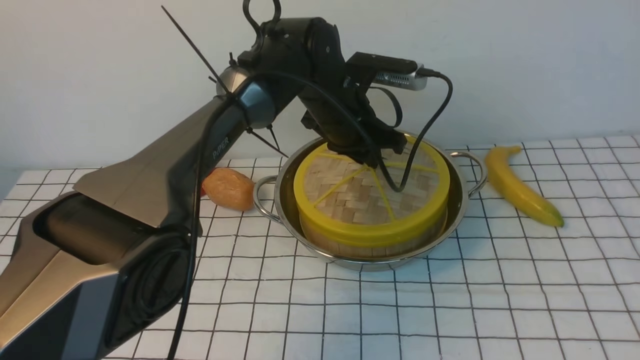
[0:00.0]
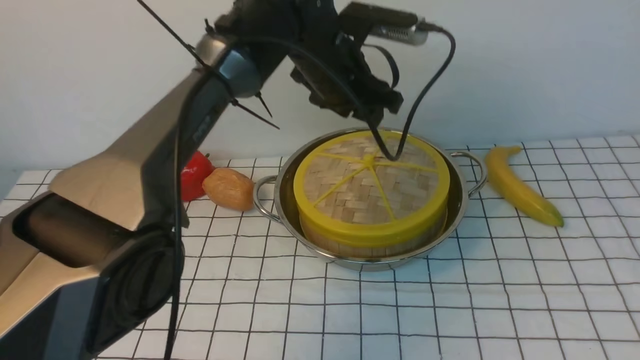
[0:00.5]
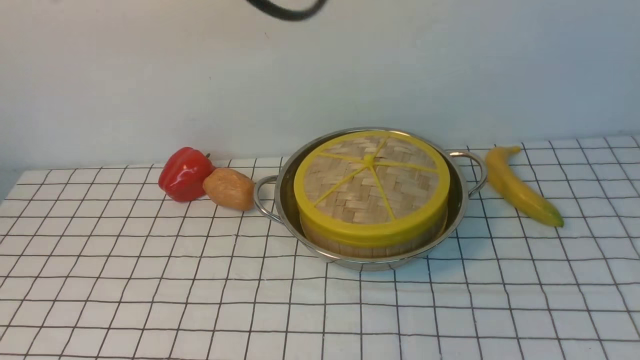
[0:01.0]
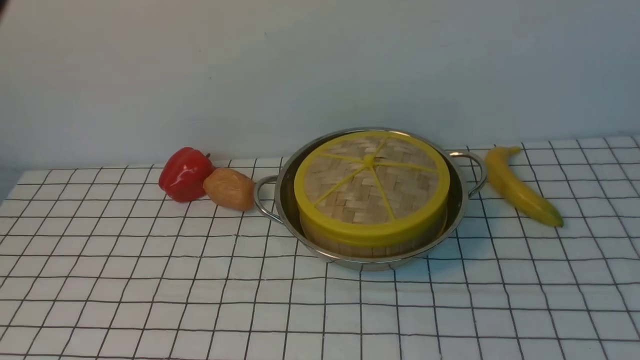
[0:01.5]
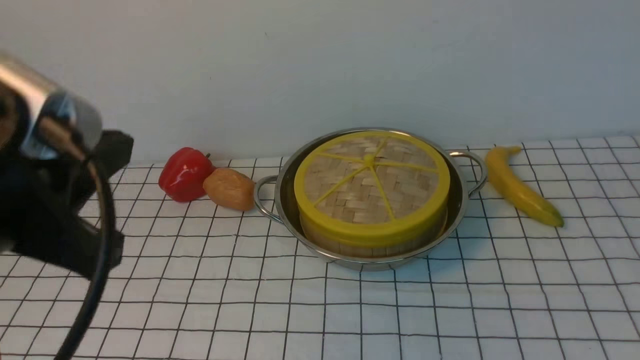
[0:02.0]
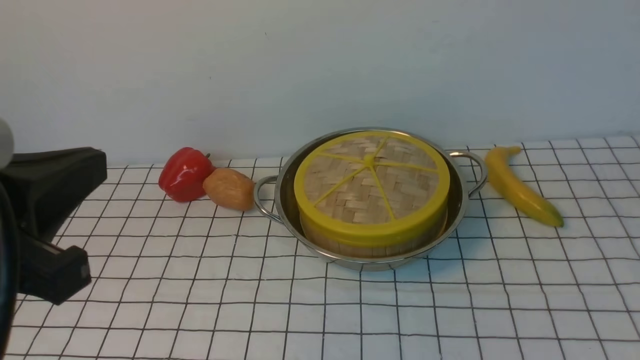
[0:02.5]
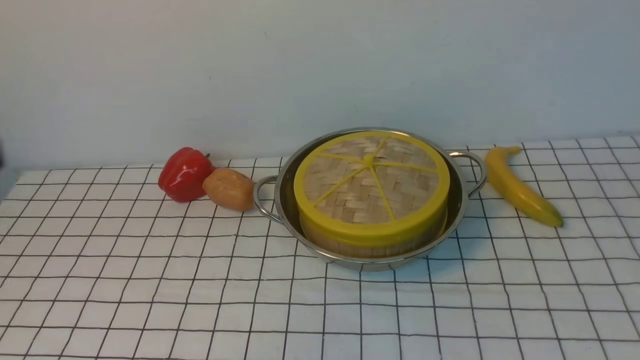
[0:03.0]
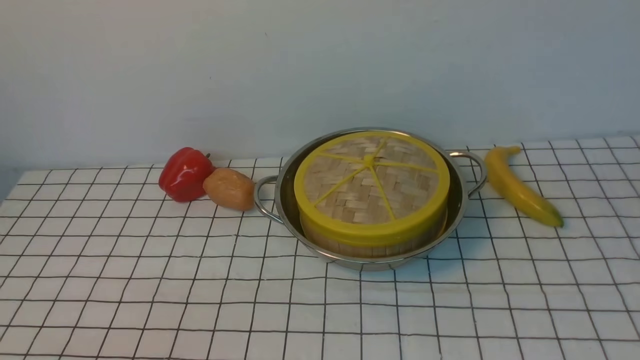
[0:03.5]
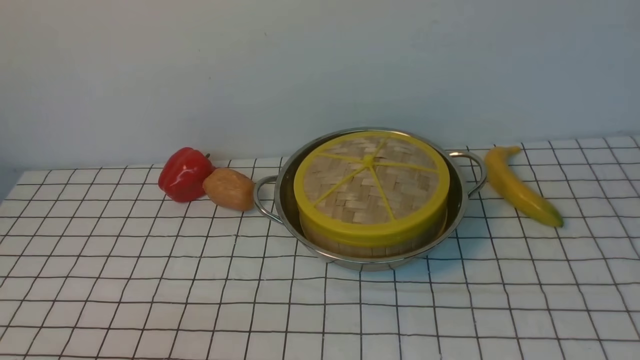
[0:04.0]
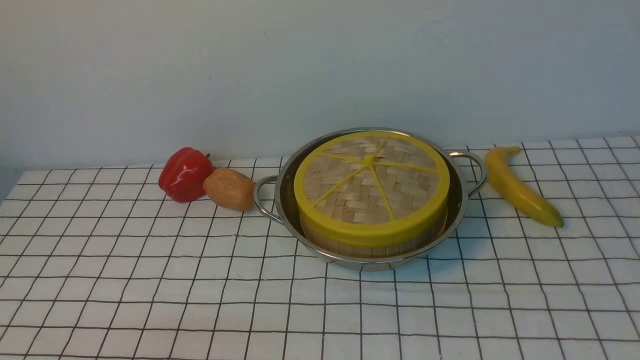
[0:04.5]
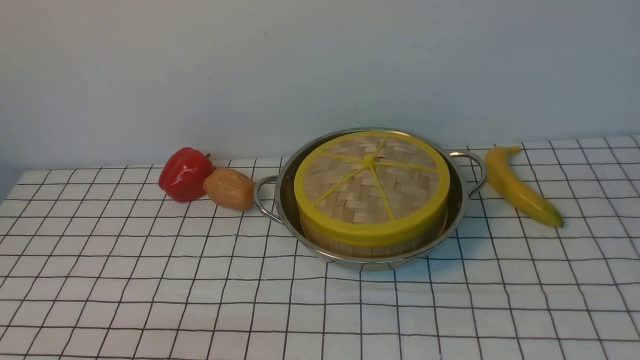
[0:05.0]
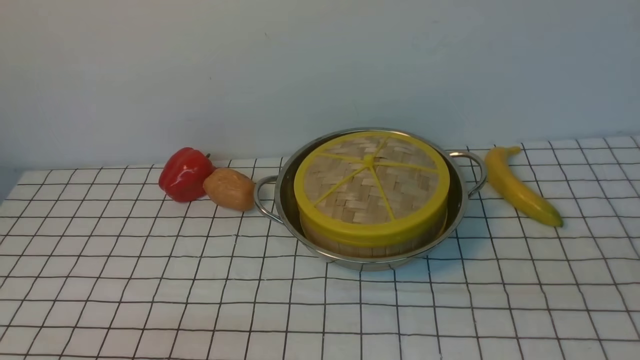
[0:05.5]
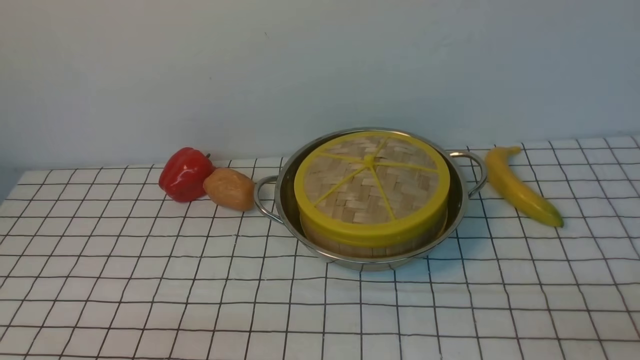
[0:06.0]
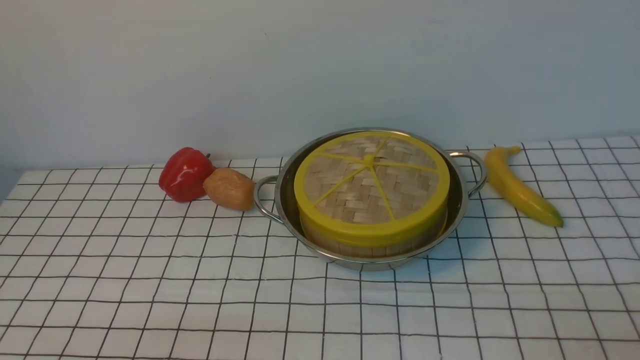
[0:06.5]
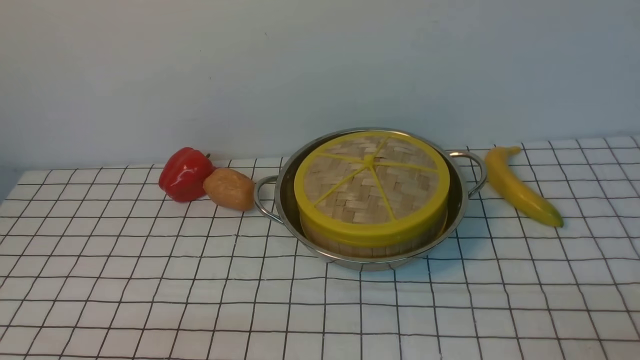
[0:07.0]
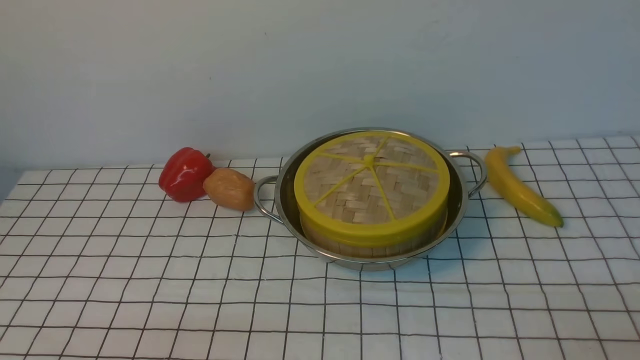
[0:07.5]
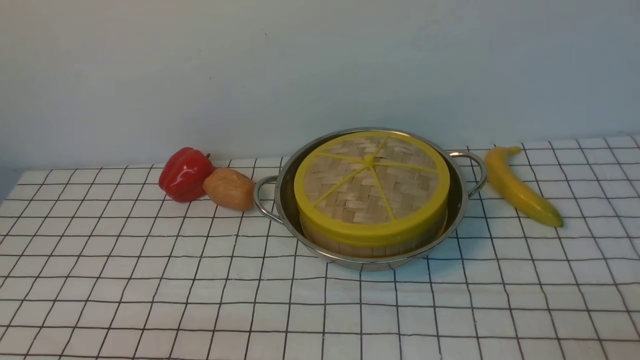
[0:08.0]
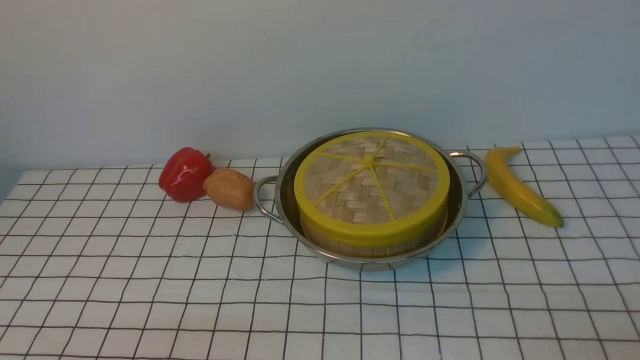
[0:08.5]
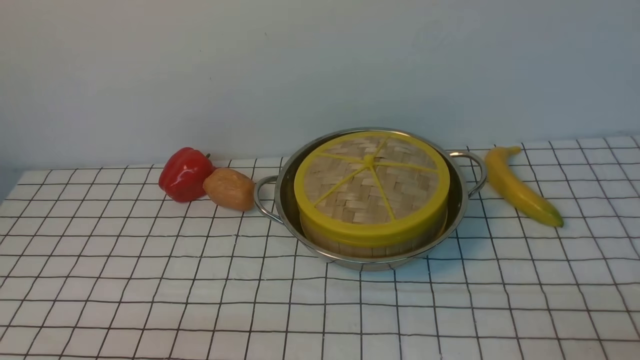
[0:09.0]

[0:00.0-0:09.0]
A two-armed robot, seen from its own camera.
Task of the whole recording: place the steamer in the pot on the white tablecloth, and put the lid on the steamer.
0:00.0 to 0:02.0: The left gripper shifts some 40 cm backward, to the left and upward, and closes up. The right gripper moves downward, approximately 10 cm, and closes up.
0:02.0 to 0:04.5: The left gripper is displaced downward by some 20 cm, and opens up.
0:07.0 to 0:09.0: Both grippers stay put.

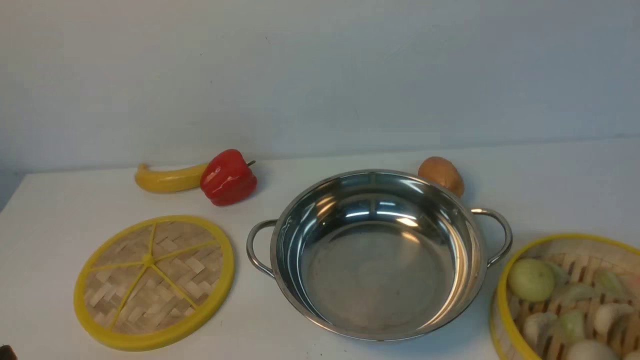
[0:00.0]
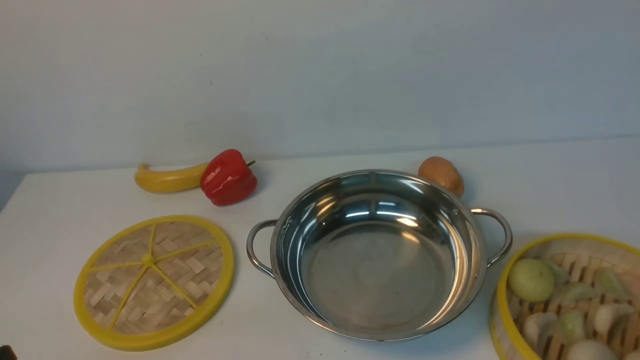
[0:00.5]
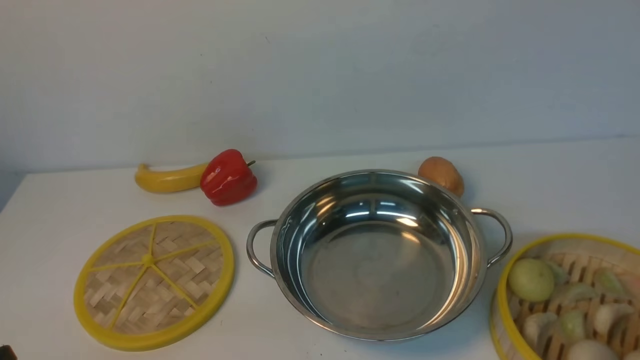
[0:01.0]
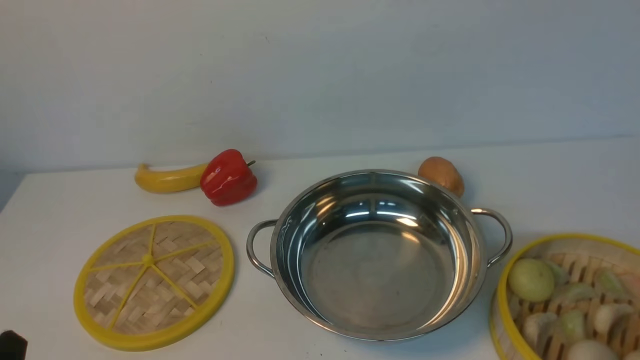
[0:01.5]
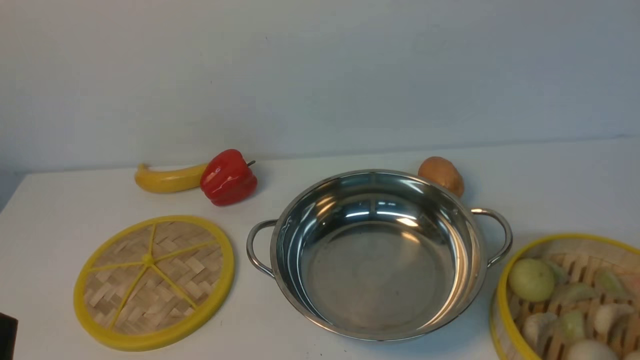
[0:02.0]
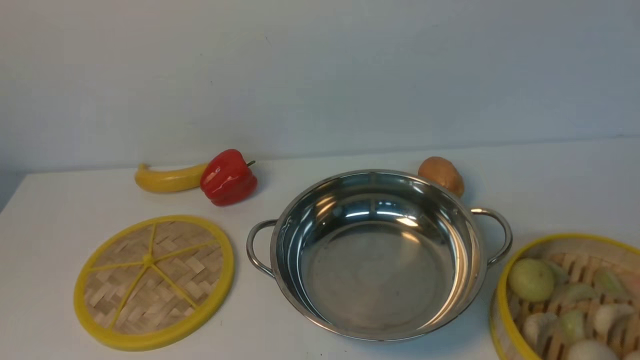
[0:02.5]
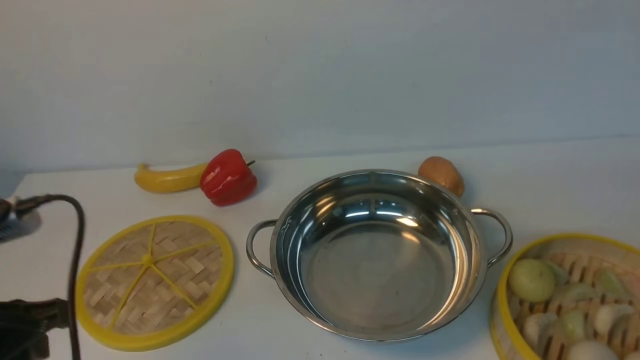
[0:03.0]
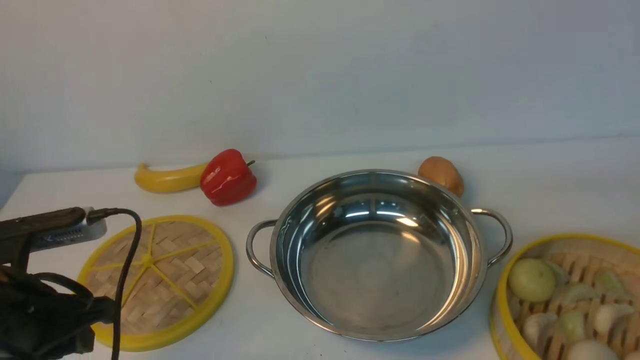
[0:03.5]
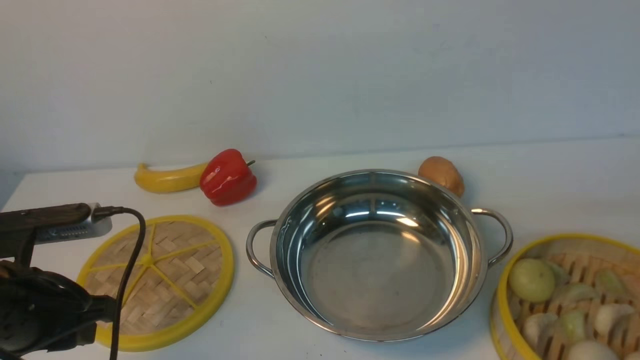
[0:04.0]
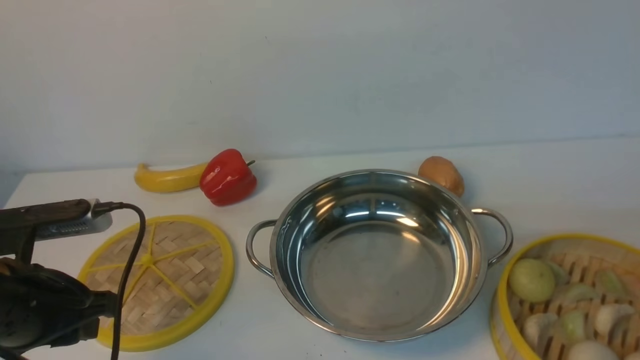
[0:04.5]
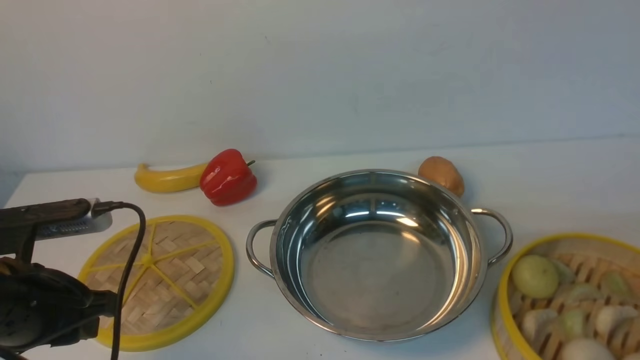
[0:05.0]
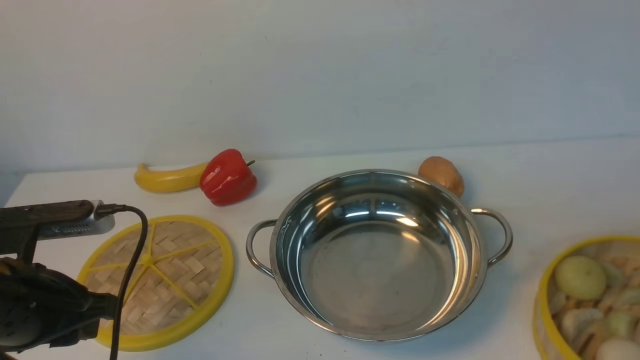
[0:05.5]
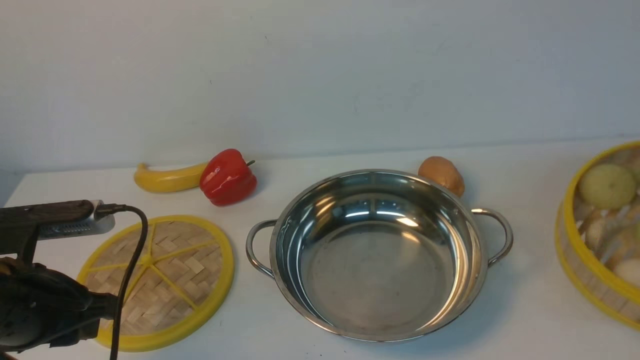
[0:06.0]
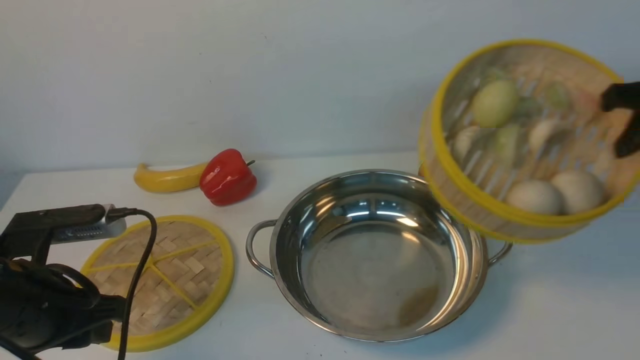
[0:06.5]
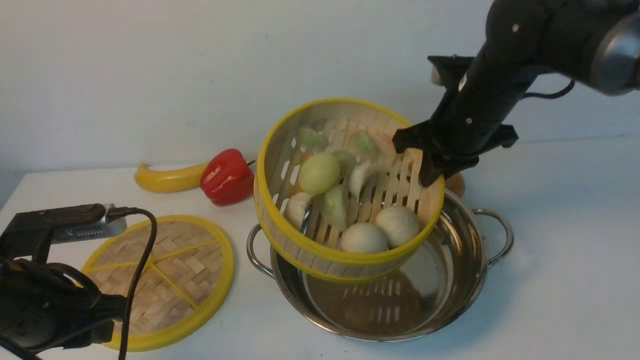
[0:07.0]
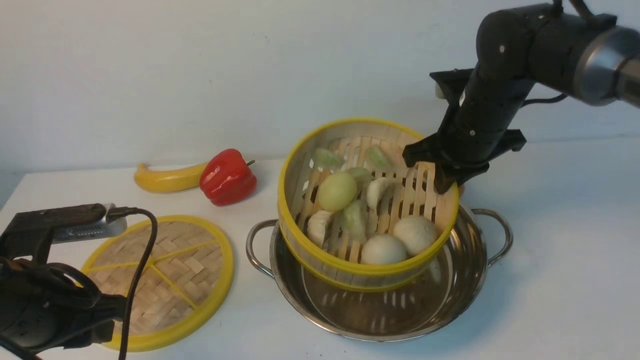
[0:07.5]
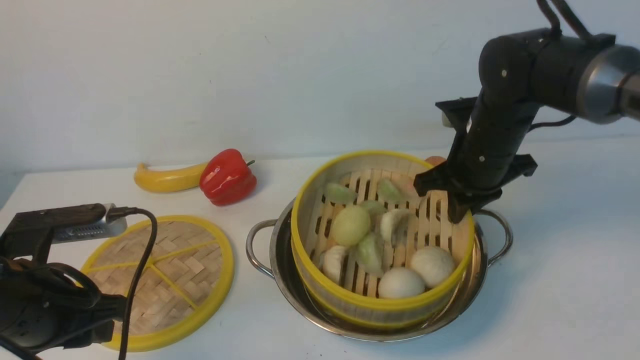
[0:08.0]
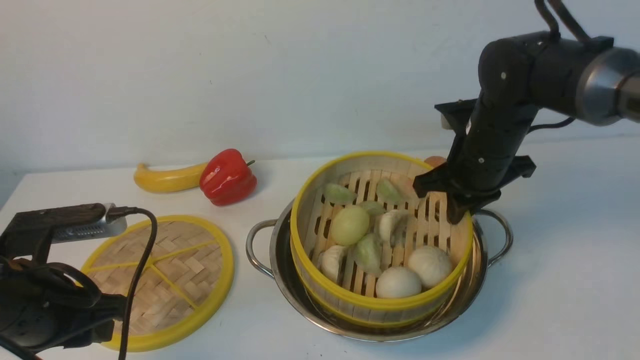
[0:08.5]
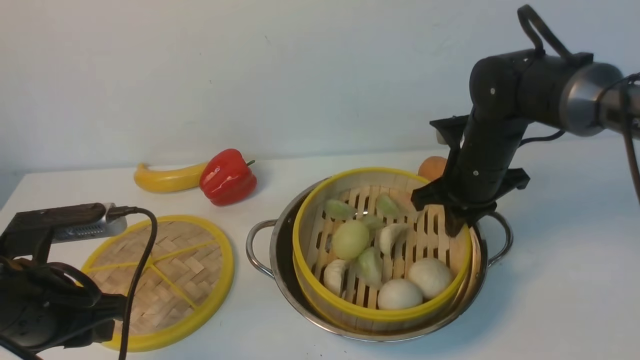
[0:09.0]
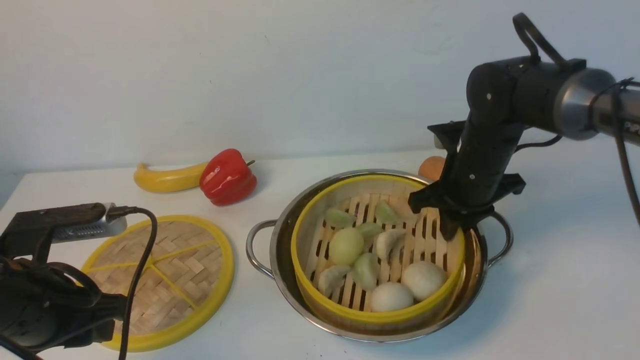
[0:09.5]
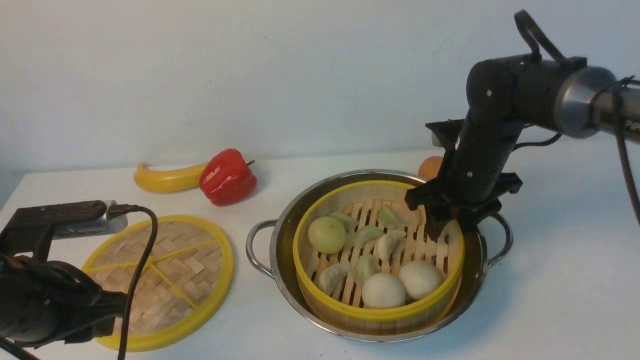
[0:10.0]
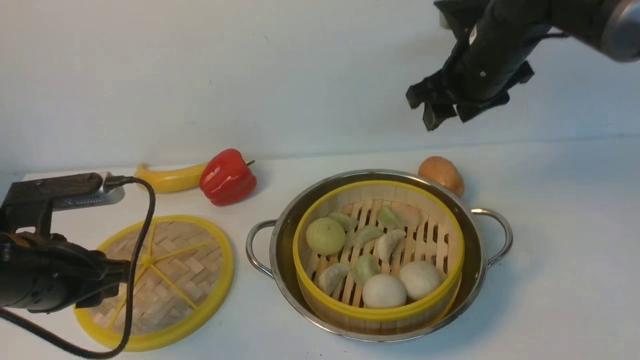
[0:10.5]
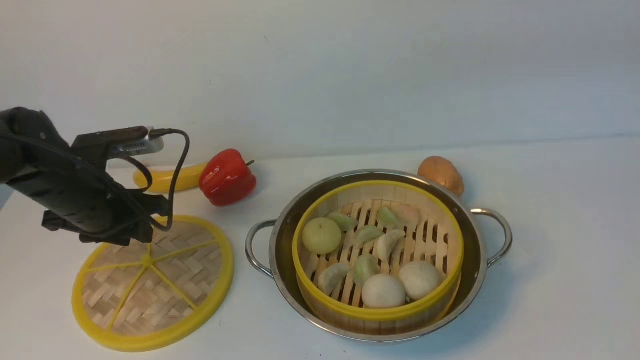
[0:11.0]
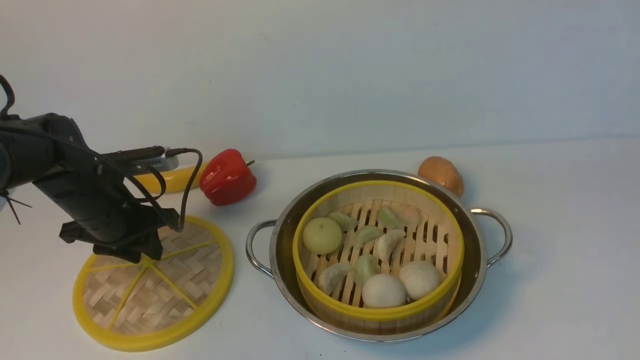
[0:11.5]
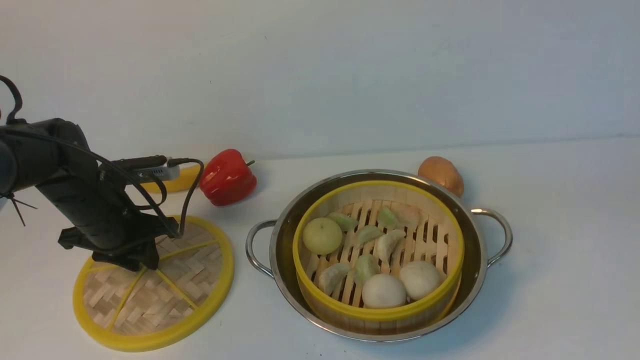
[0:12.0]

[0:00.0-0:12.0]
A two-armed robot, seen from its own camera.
Task of the whole recording: place the steamer in the pot on the white table, and put the lid on the steamer.
Step, 0:00.0 to 0:05.5: use the right arm to lift the steamer closest to it.
Step, 0:06.0 to 0:10.0: use the right arm to put the steamer into the iron steamer pot in the middle.
0:02.0 to 0:04.0: The left gripper moves forward, roughly 15 cm.
0:04.0 to 0:06.0: The right gripper goes some 10 cm upward and to the right, and closes.
0:06.0 to 0:08.0: The right gripper is displaced to the left and forward by approximately 30 cm.
0:08.0 to 0:10.0: The right gripper opens up.
0:10.0 to 0:12.0: The left gripper shifts roughly 15 cm forward and downward; the right gripper travels backward, upward and to the right by some 40 cm.
